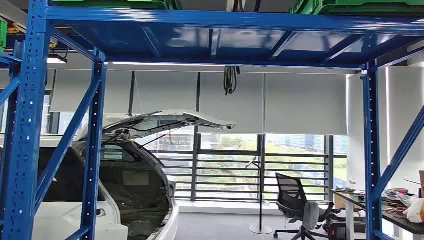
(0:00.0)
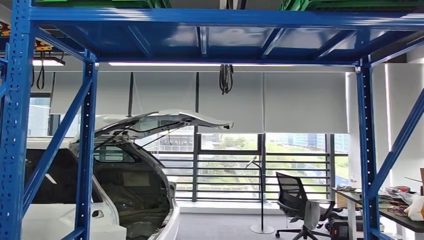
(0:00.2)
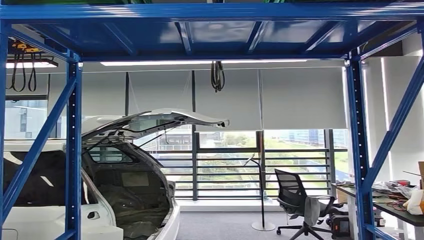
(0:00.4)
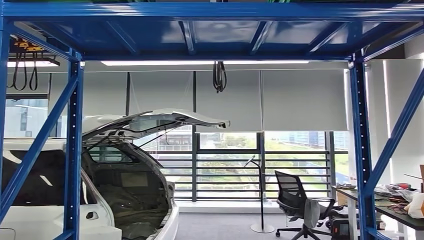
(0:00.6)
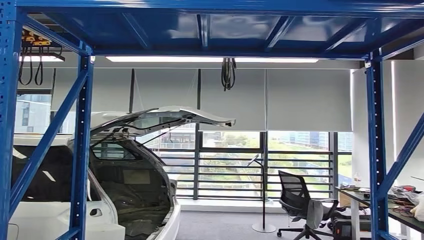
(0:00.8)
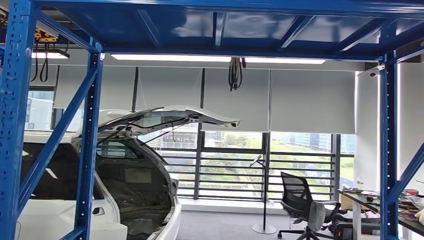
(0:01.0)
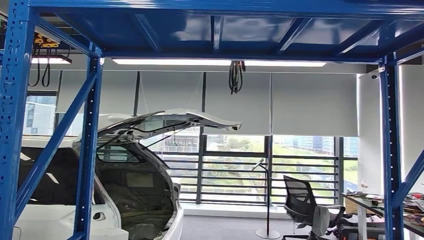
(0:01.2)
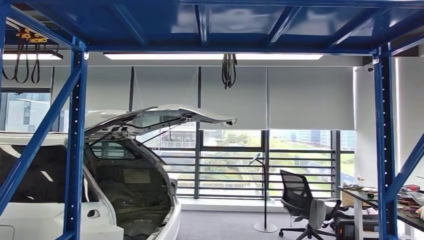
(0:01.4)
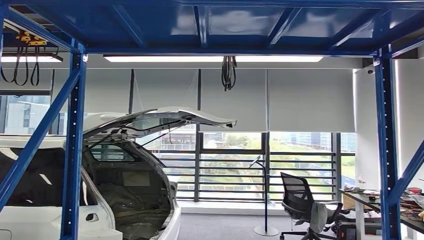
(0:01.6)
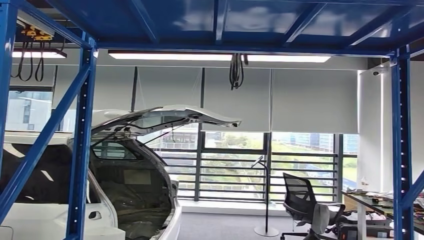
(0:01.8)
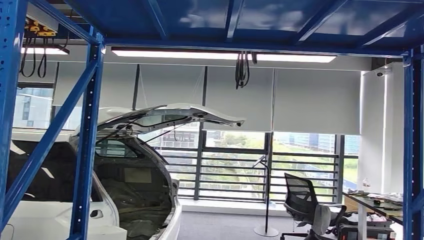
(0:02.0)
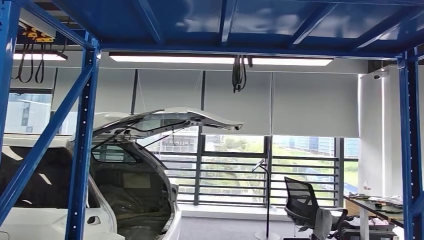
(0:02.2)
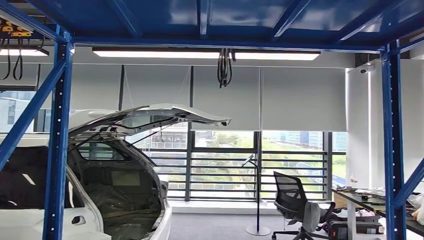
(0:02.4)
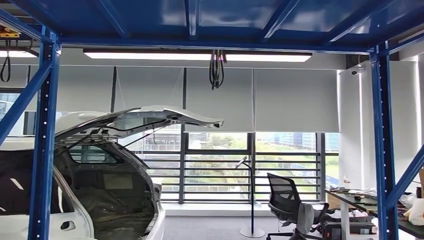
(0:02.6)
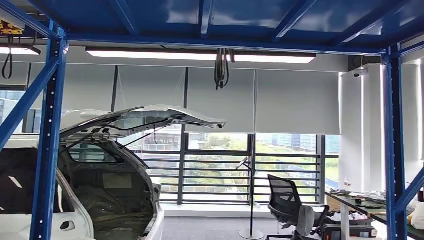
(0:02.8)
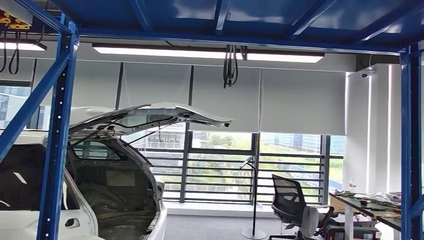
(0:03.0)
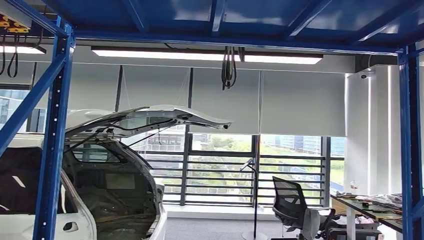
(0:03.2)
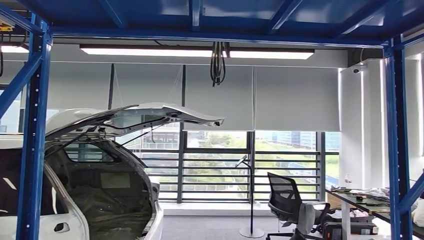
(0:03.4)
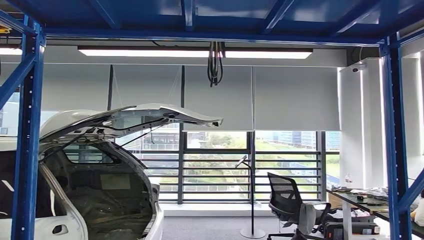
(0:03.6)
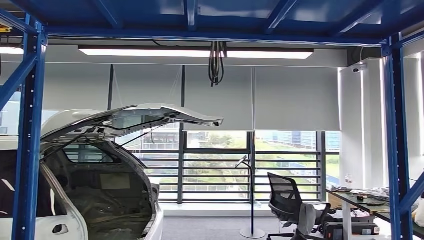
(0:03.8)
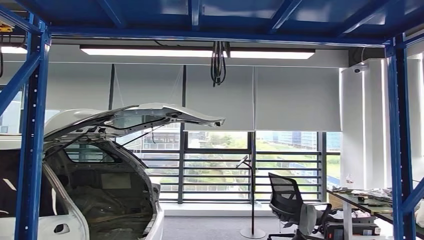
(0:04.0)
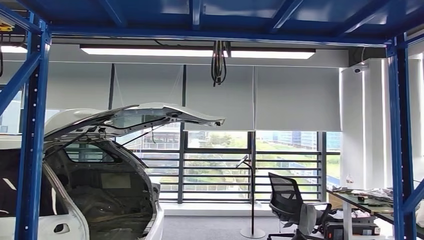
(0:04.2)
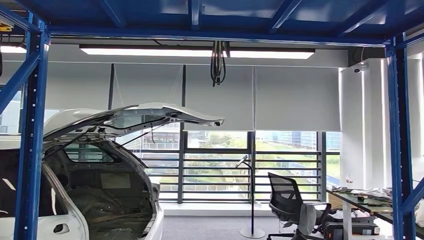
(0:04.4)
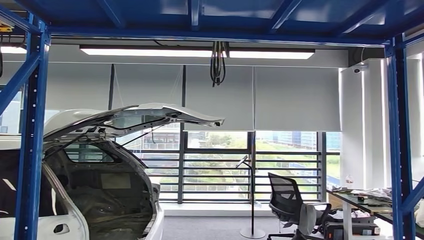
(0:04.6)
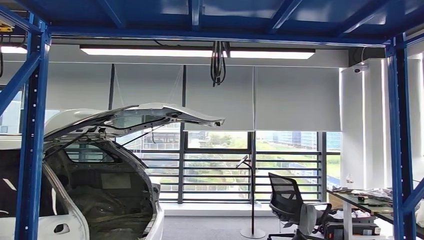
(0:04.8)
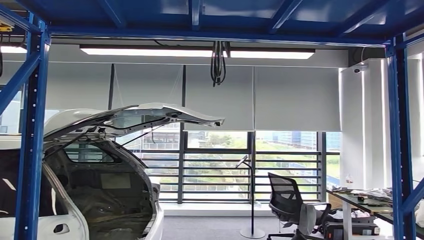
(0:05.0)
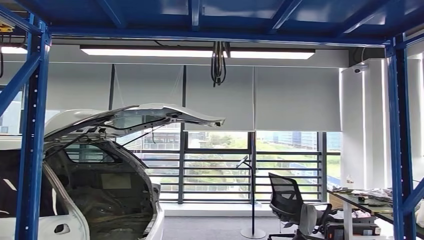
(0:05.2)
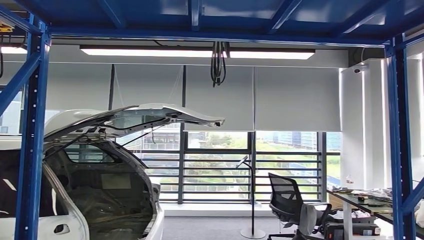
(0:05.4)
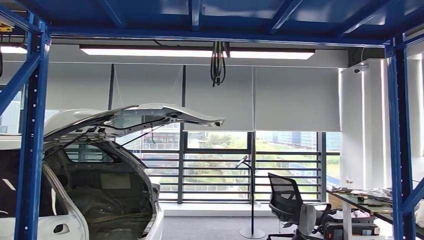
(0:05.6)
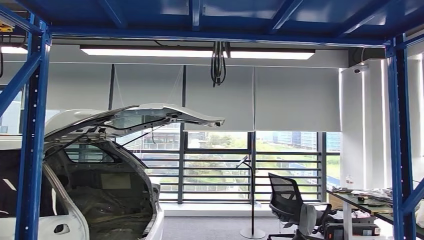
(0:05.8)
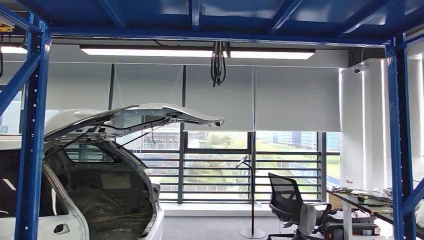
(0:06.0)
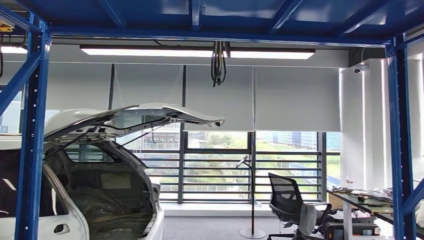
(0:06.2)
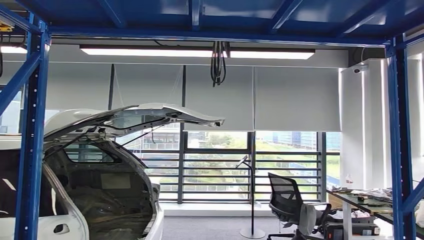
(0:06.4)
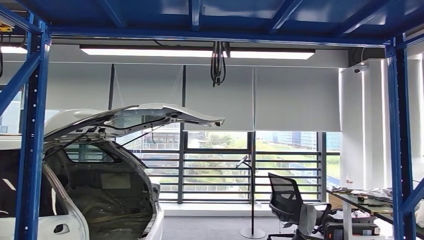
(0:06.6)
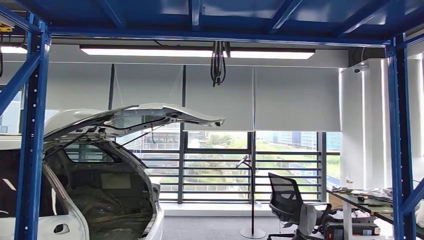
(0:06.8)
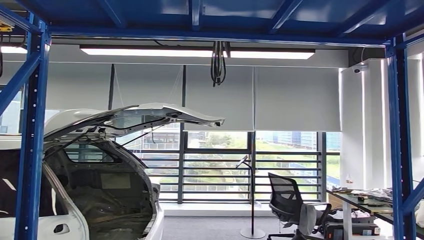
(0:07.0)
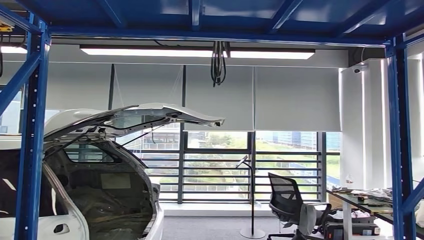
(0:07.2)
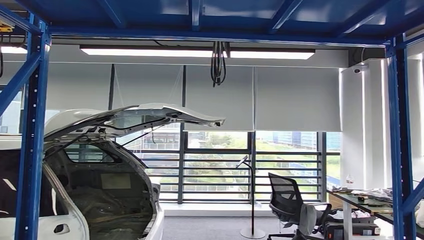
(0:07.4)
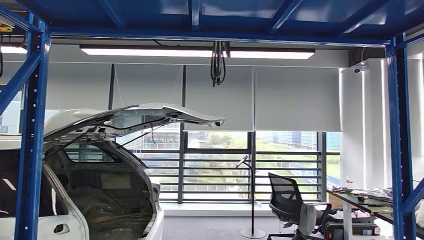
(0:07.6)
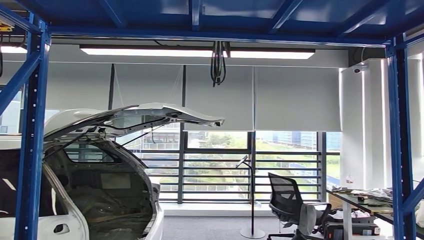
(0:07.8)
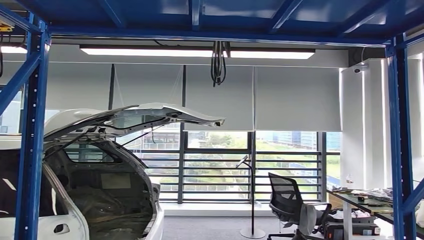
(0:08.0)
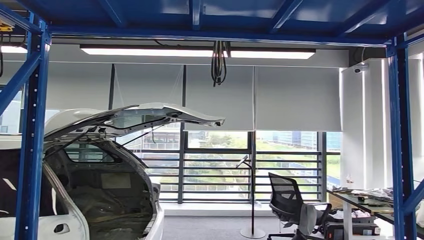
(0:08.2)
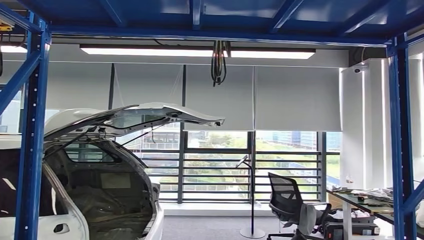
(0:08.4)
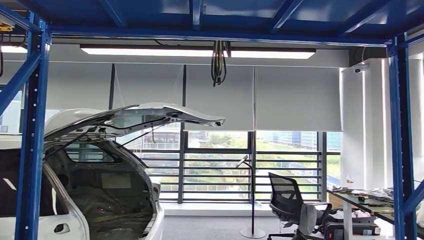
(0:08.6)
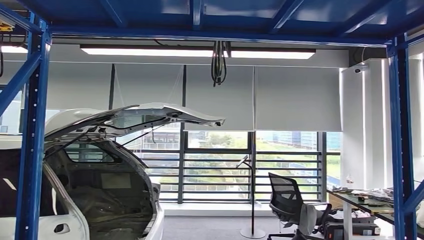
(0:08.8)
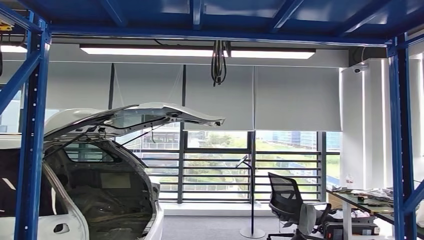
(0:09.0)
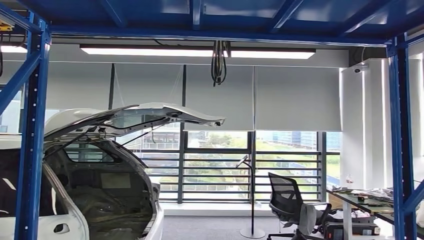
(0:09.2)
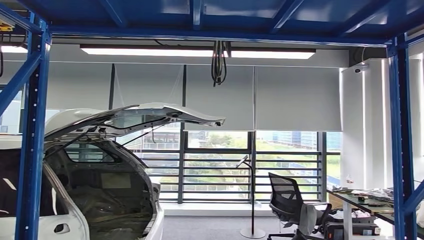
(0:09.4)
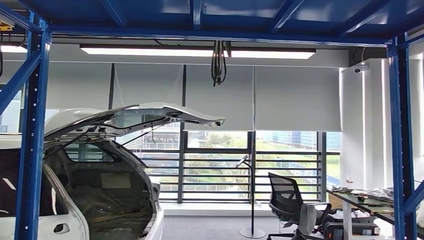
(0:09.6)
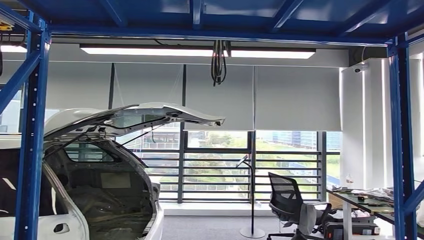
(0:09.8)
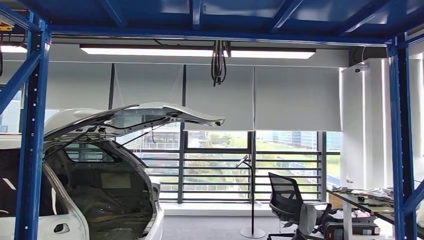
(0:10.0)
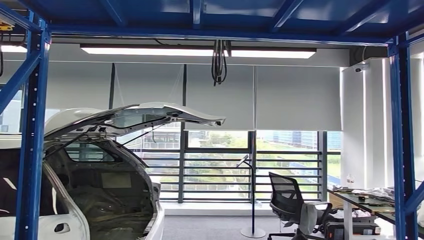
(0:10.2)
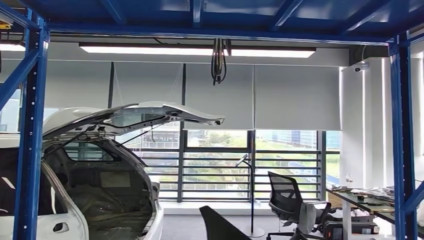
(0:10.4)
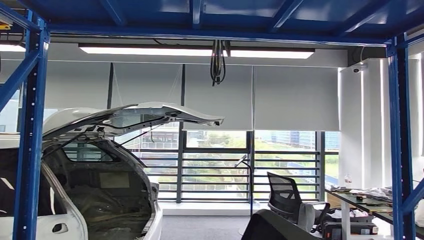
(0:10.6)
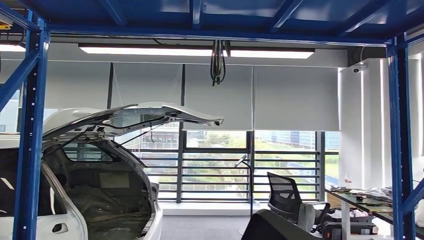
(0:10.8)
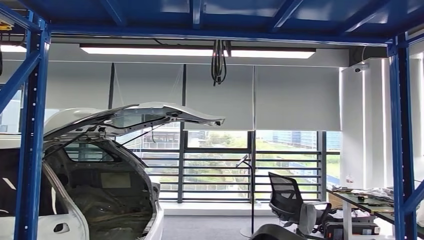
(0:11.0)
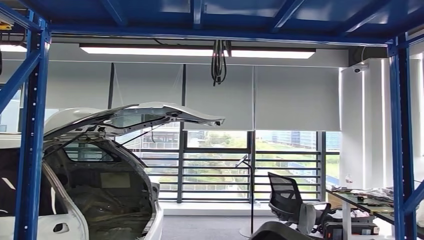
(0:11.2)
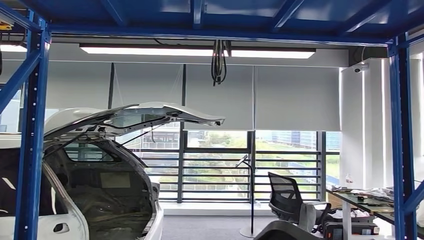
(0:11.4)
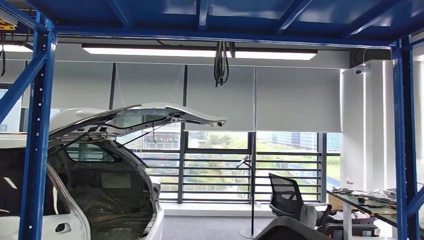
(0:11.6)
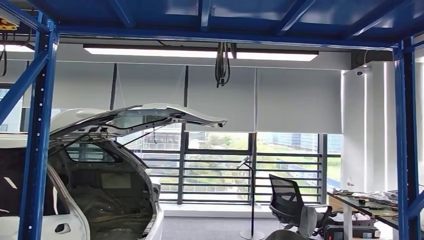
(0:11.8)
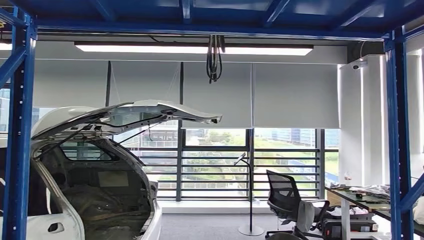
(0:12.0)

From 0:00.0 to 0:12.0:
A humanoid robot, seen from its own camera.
Step, from 0:00.0 to 0:09.4: Take small components from the rack.
From 0:04.4 to 0:06.0: The right hand heads forward, covering some 5 cm.
From 0:07.6 to 0:09.0: The right hand goes about 15 cm to the left.
From 0:09.0 to 0:10.4: The right hand shifts approximately 10 cm upward and backward.

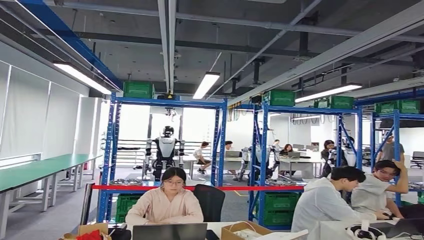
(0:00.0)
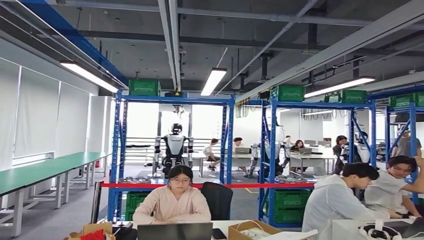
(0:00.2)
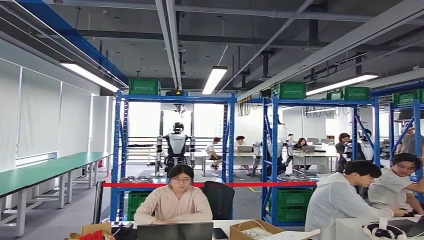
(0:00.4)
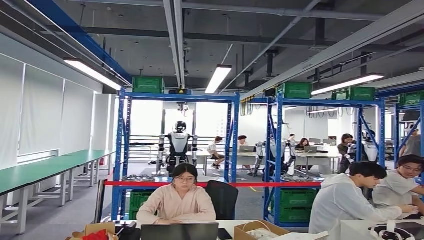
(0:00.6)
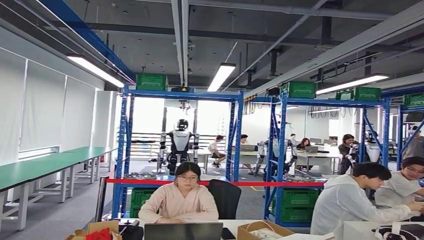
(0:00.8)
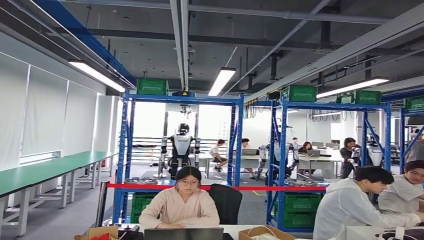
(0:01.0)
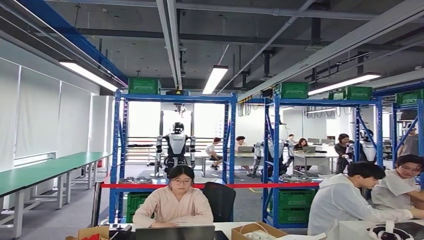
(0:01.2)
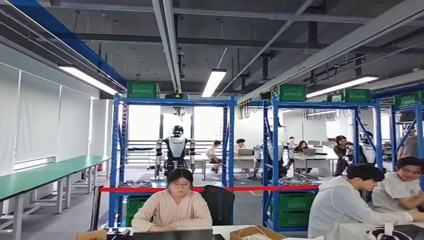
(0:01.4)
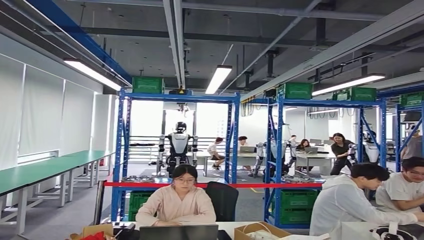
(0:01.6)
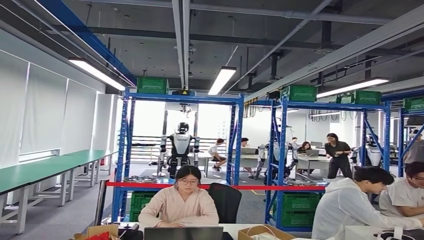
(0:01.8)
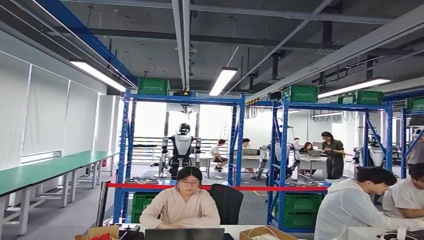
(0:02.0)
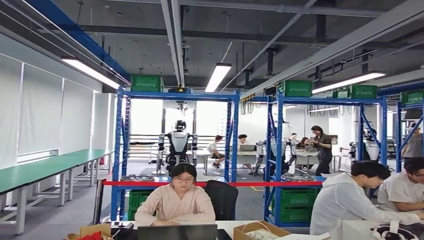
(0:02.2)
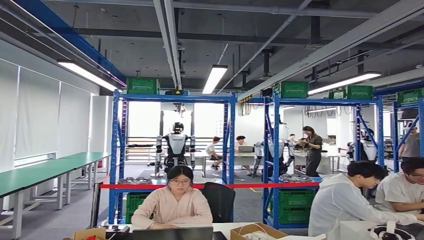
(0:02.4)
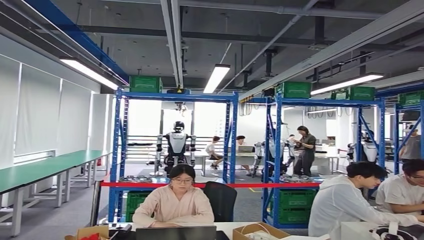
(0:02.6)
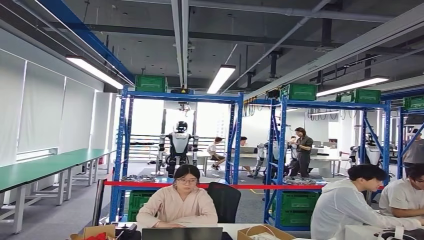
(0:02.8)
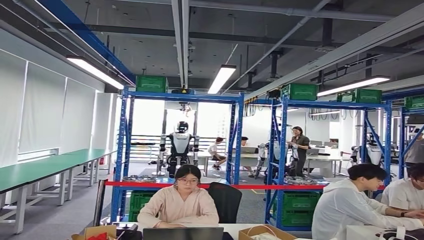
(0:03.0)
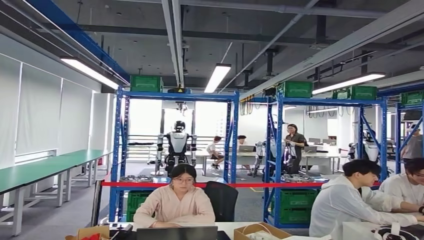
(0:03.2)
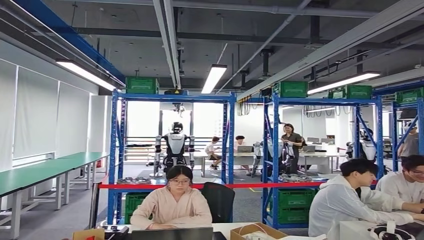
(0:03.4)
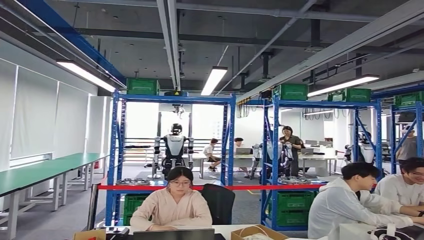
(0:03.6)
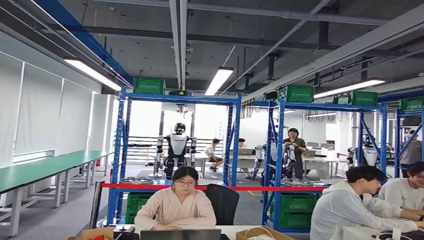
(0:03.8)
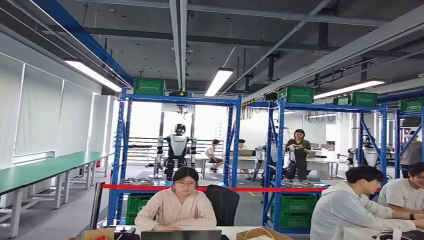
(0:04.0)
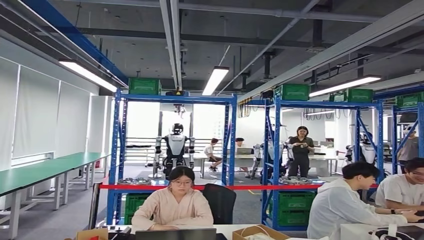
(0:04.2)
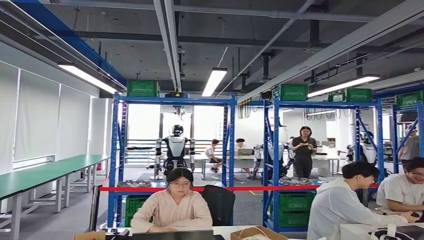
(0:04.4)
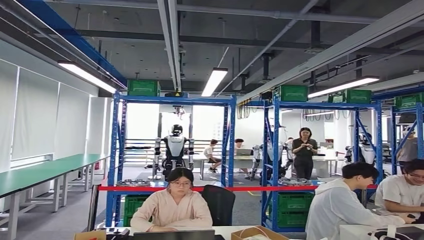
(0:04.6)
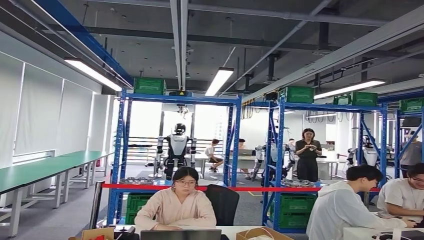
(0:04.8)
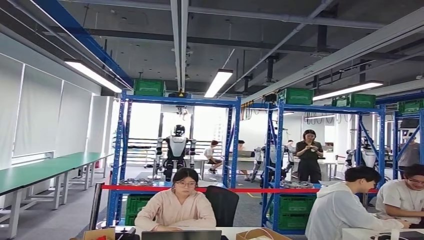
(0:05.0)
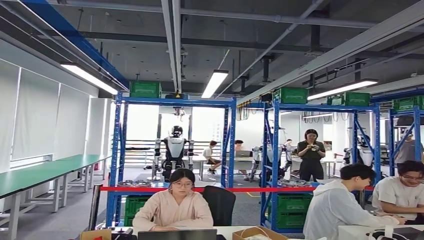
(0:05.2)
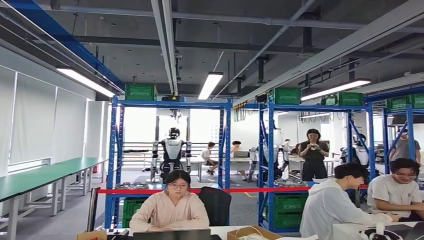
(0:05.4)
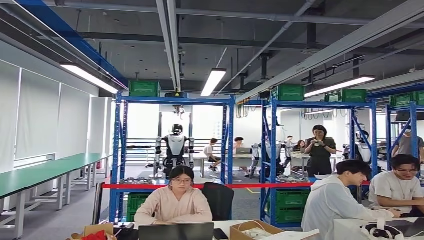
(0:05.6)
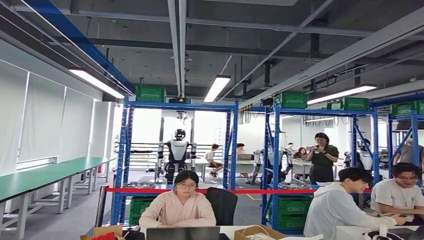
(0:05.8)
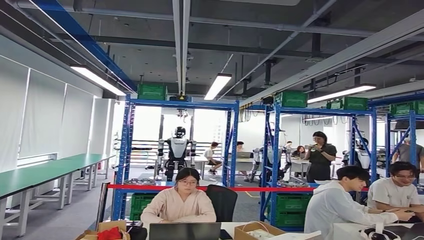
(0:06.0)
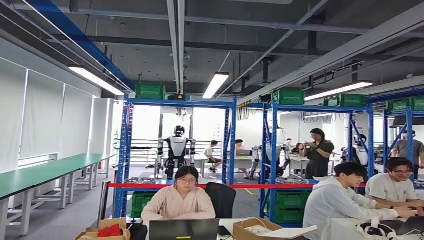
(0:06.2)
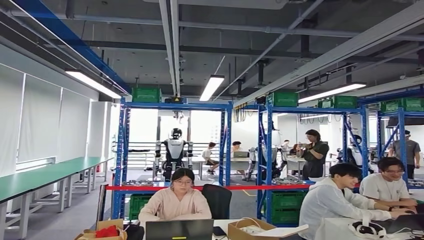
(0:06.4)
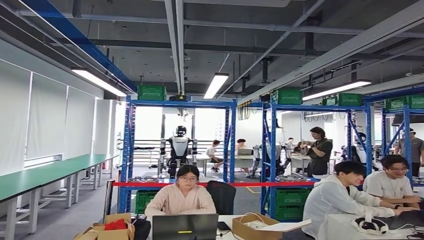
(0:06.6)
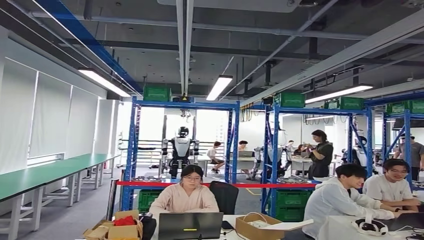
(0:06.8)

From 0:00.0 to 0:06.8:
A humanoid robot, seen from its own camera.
Step, from 0:02.0 to 0:05.2: Insert the small parts into the corresponding holes on the workbench.
